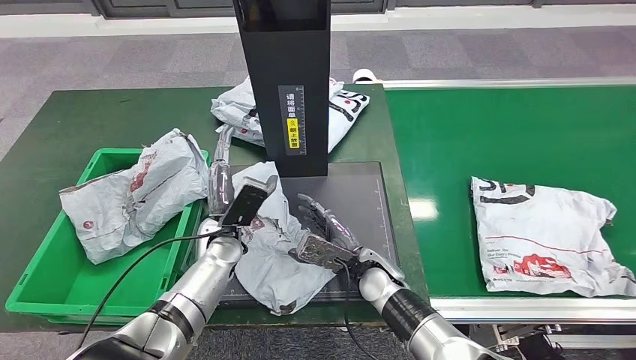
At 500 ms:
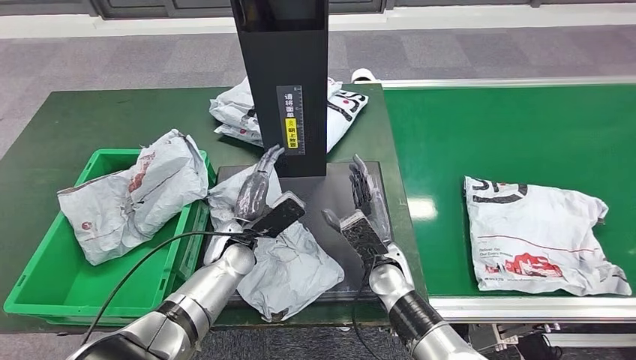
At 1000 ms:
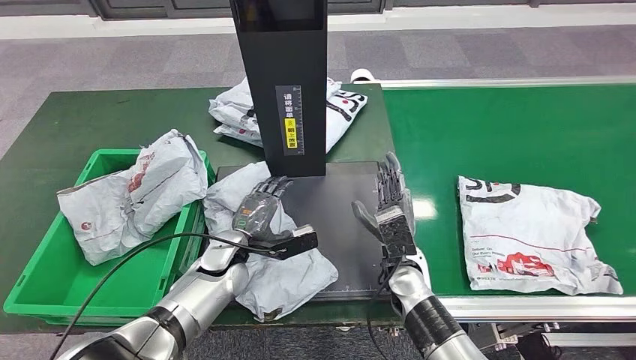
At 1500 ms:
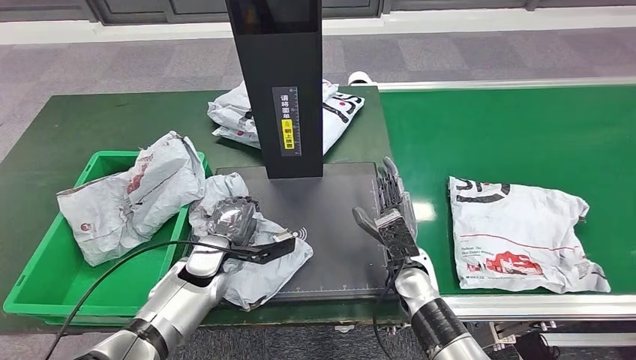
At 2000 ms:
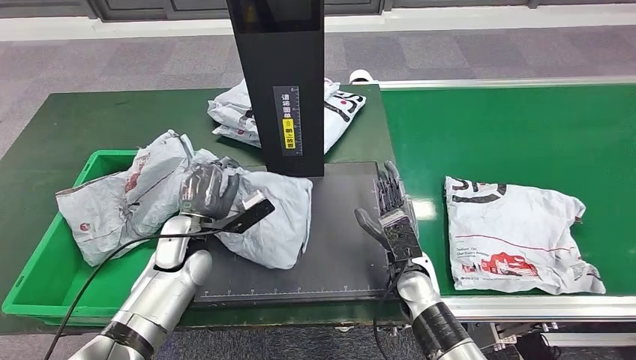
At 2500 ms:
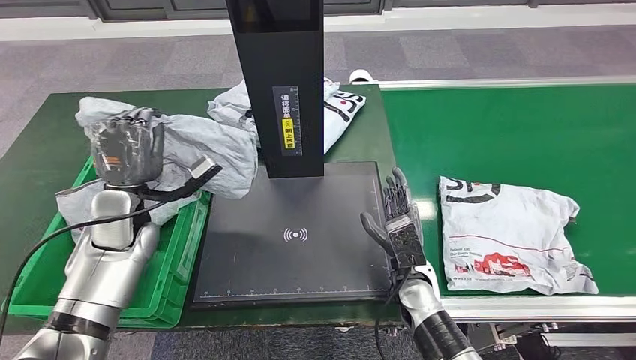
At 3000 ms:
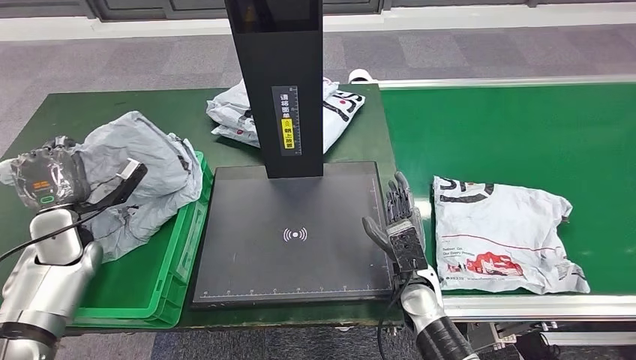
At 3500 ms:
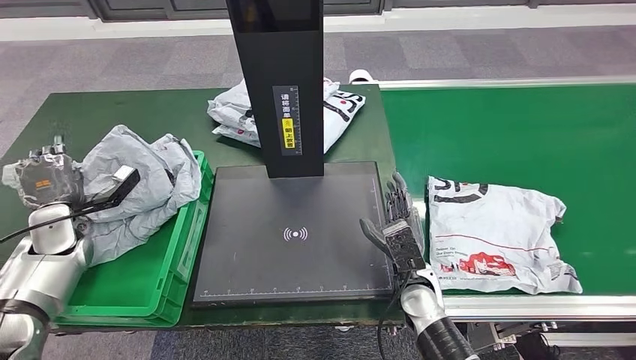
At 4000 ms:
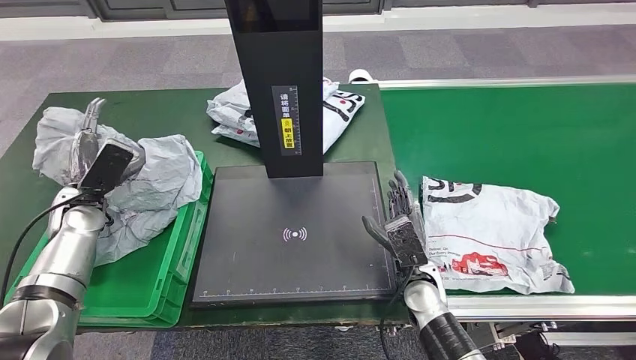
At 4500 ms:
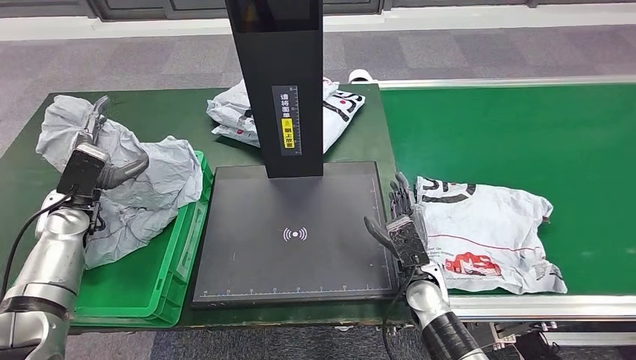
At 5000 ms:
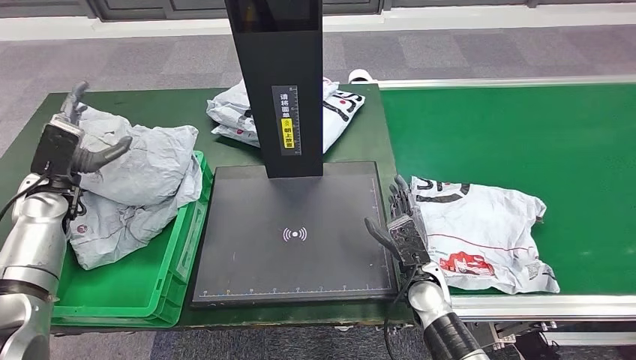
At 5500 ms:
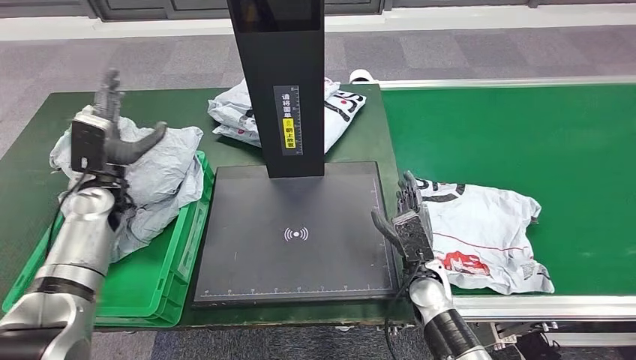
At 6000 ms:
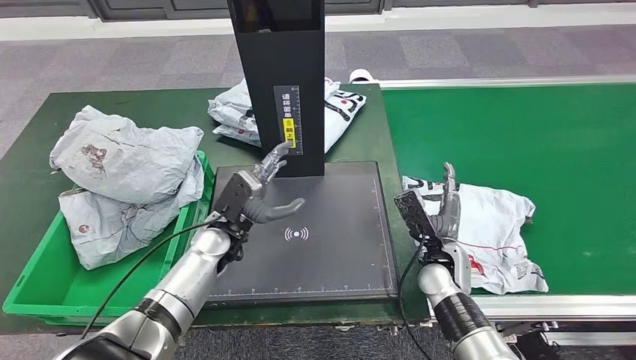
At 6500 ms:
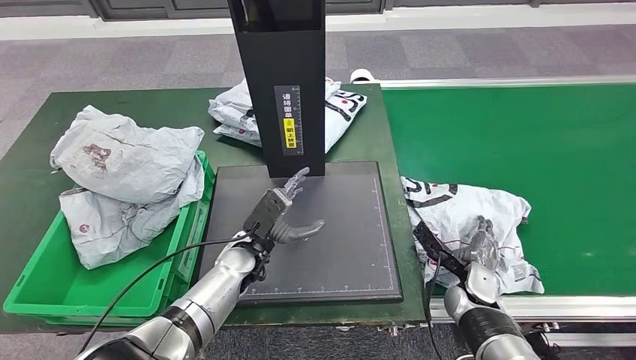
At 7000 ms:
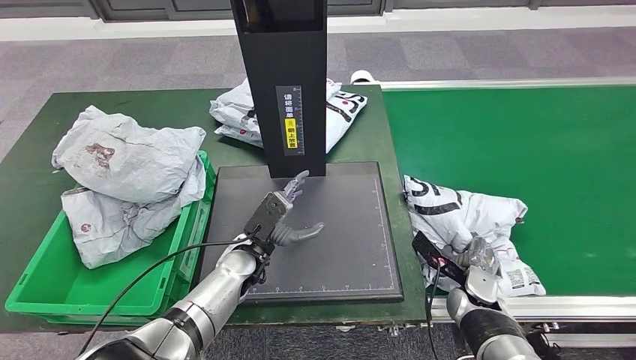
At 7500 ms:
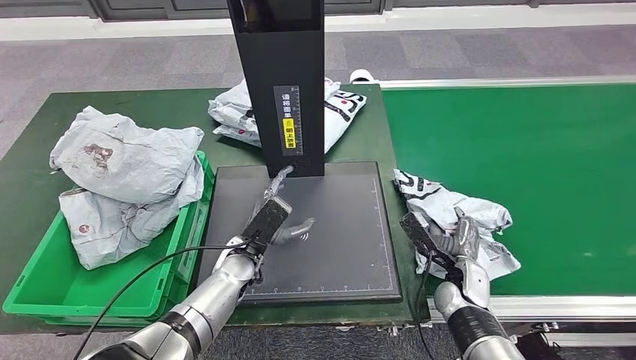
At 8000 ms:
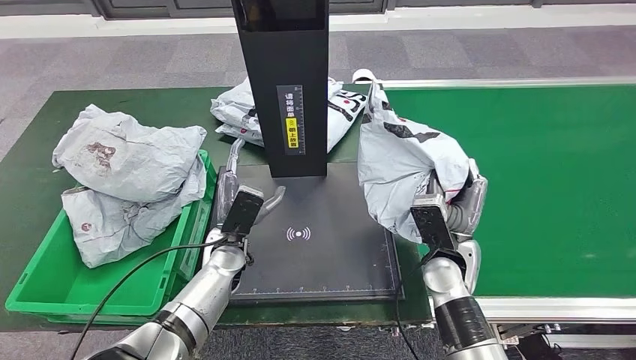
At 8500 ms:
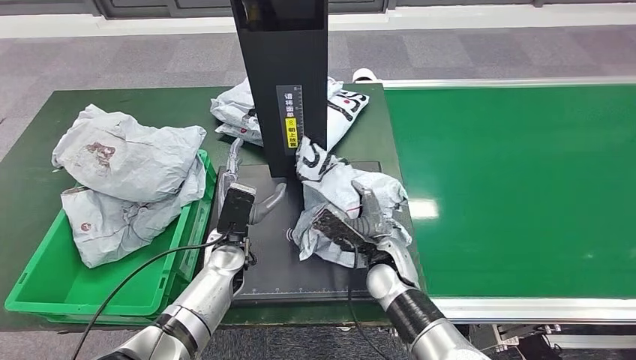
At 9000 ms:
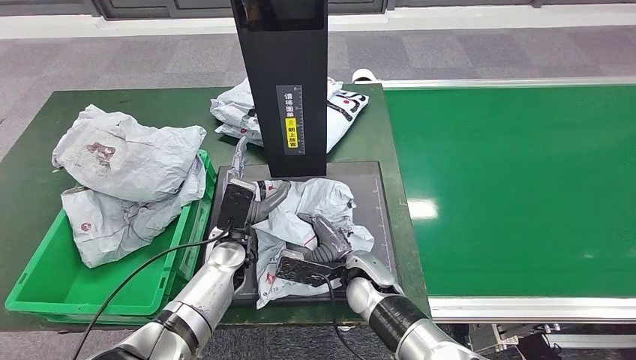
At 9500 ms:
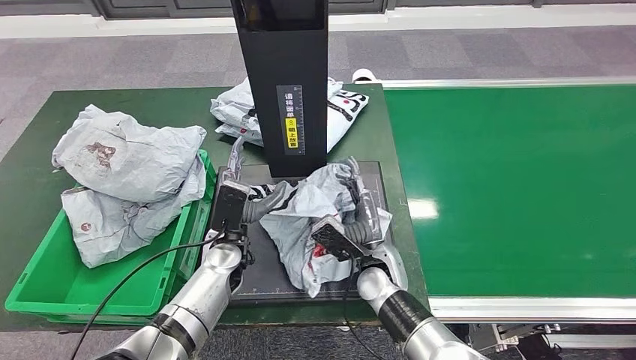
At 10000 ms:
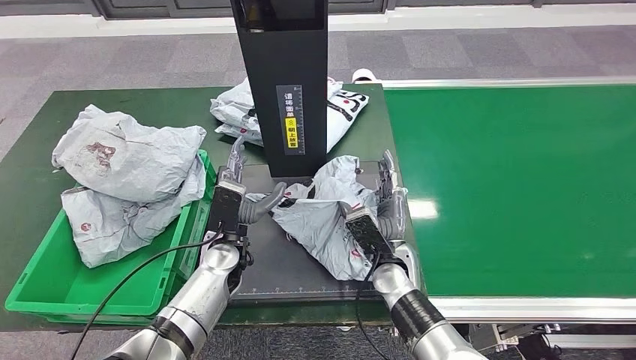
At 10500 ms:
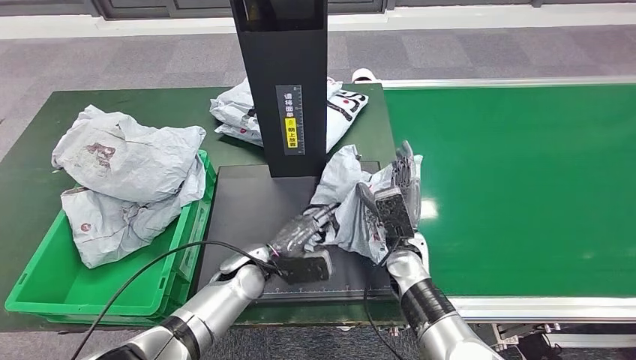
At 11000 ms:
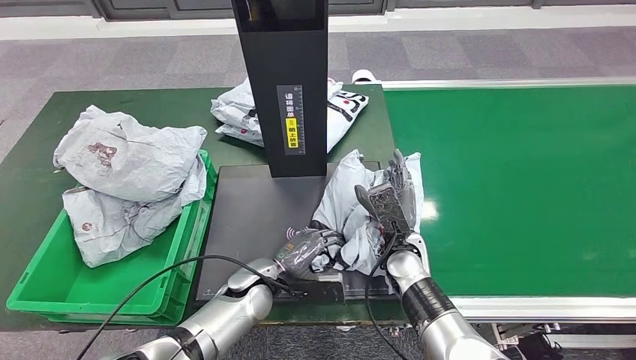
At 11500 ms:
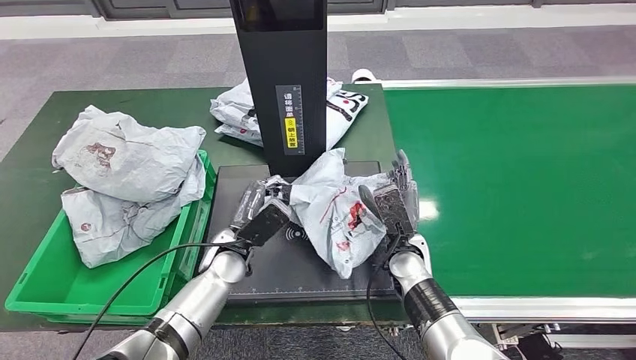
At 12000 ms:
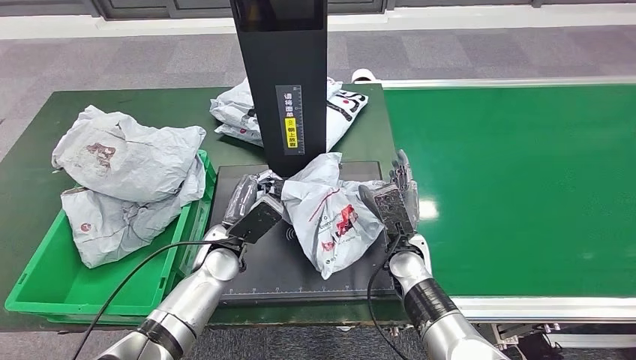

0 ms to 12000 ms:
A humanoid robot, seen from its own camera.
Step, 1000 ms to 2500 ms: Pick up the parcel from the inbound machine.
Step, 3000 ms to 6000 ms: Place the parcel into the delivery box.
Step, 6500 ms to 8000 ms: Pick up the parcel from the conveyor belt.
Step, 9000 ms to 10000 ms: Place the parcel onto the inbound machine.
Step, 10500 ms to 11500 ms: Pick up the parcel from the inbound machine.
8000 ms to 10000 ms: The right hand shifts roughly 10 cm to the left.

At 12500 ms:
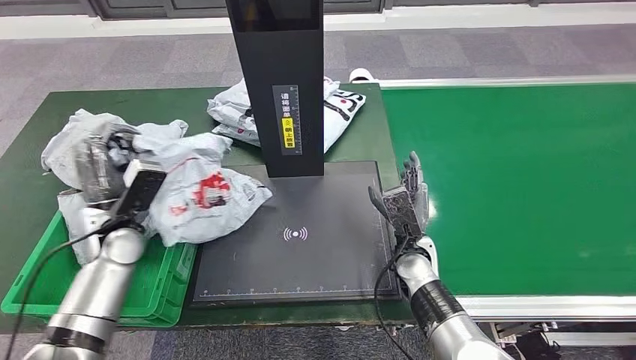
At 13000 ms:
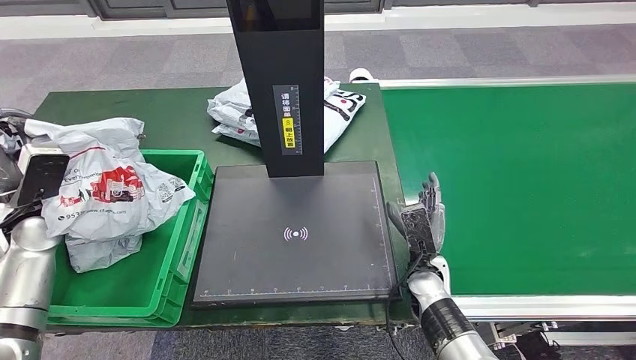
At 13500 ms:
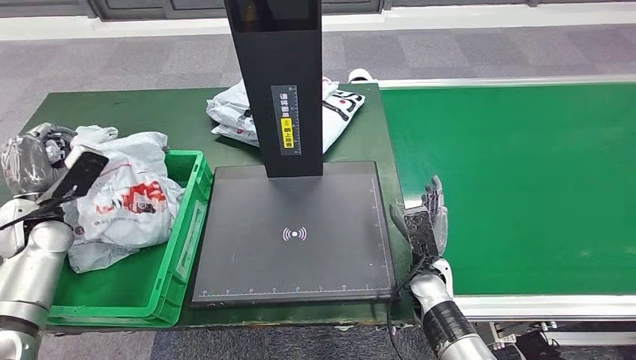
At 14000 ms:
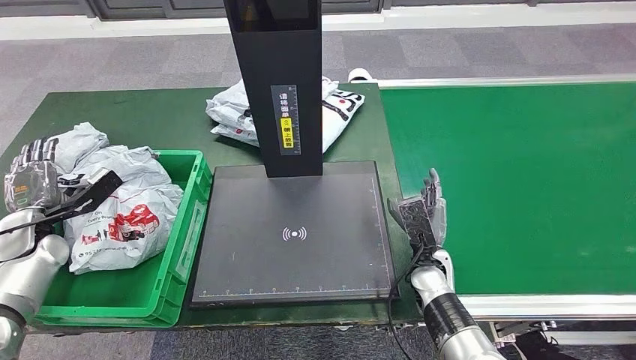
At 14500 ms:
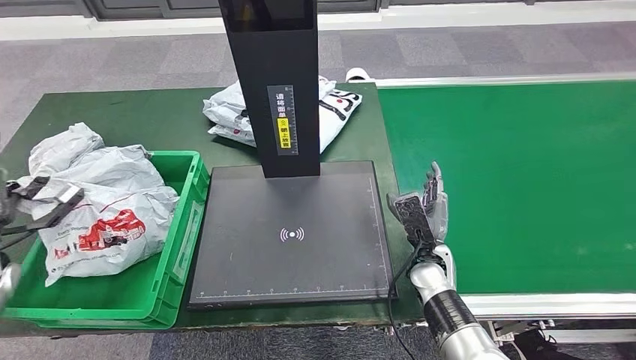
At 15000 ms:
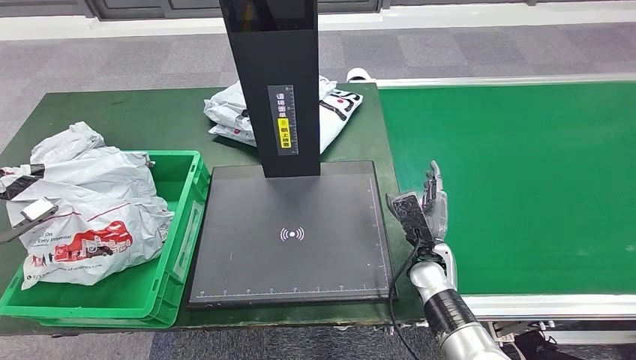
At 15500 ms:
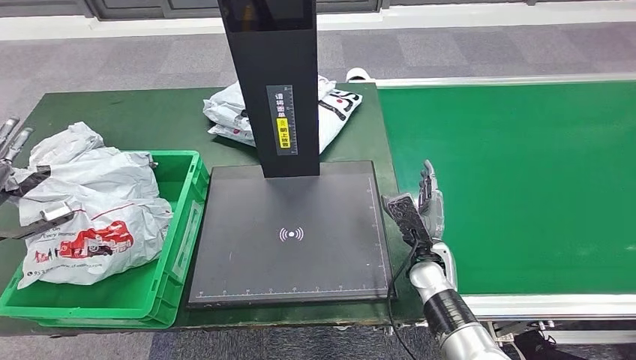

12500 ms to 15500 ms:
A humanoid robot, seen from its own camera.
Step, 12500 ms to 15500 ms: Place the parcel into the delivery box.
14000 ms to 15500 ms: The left hand is displaced upward, to the left and backward by some 15 cm.
